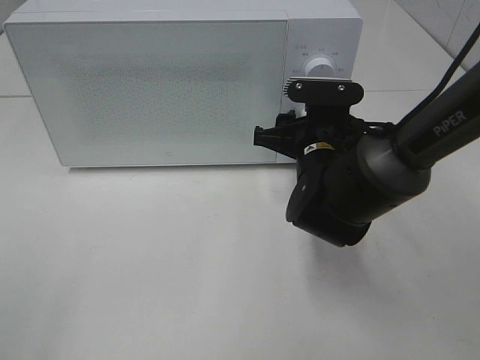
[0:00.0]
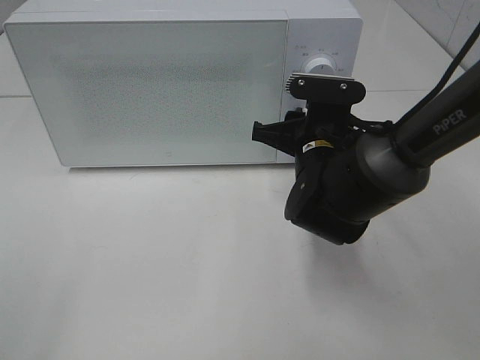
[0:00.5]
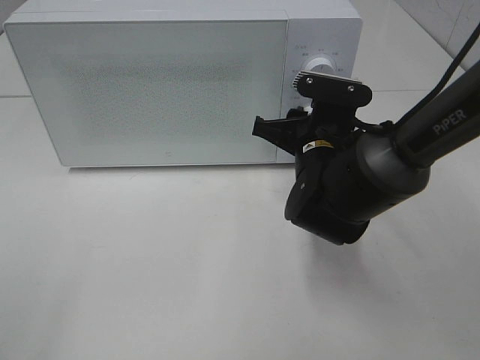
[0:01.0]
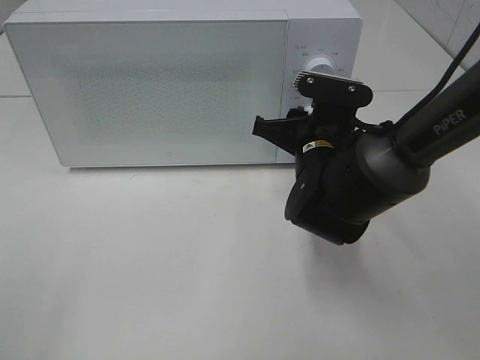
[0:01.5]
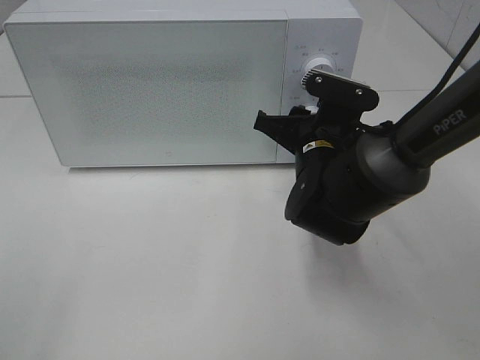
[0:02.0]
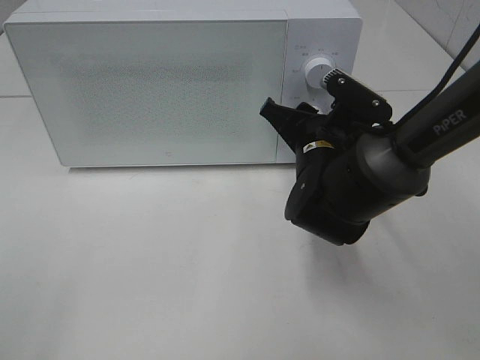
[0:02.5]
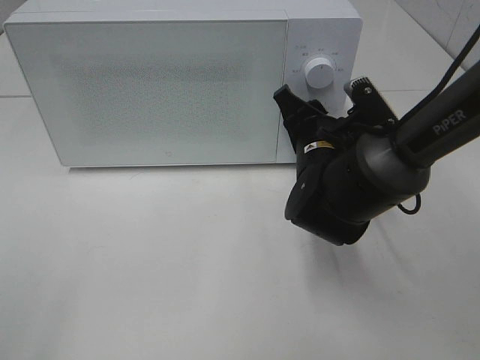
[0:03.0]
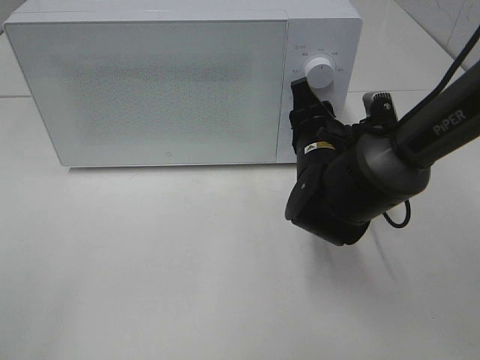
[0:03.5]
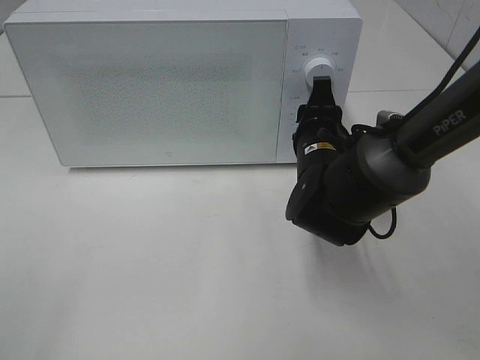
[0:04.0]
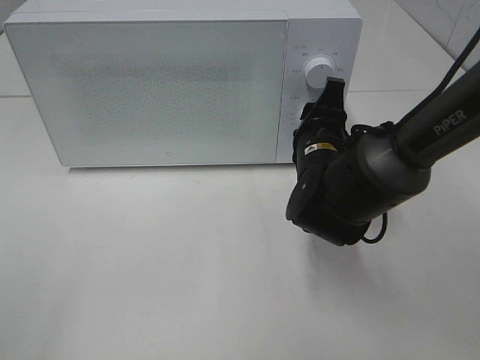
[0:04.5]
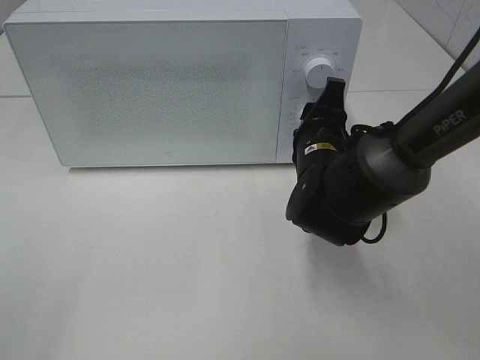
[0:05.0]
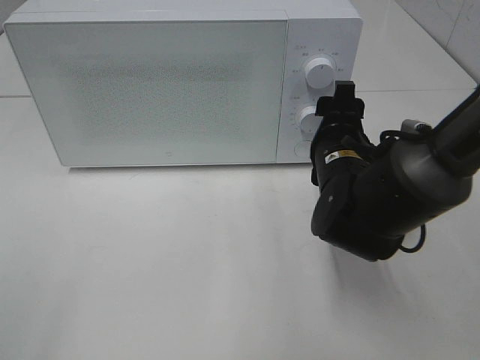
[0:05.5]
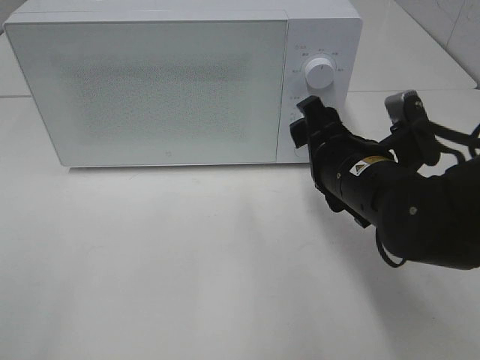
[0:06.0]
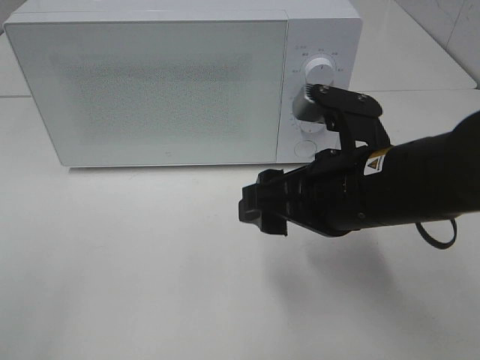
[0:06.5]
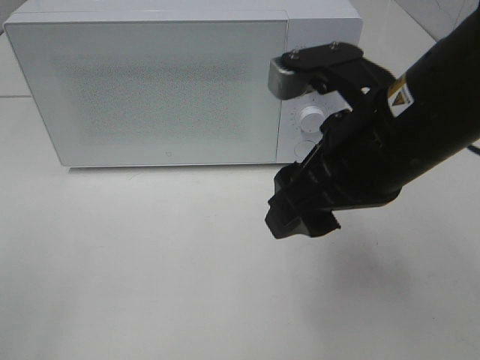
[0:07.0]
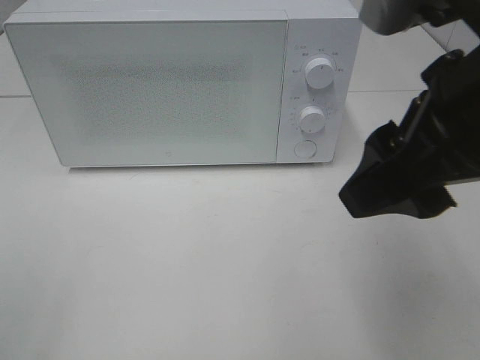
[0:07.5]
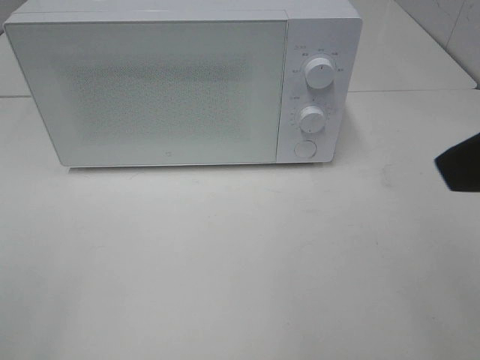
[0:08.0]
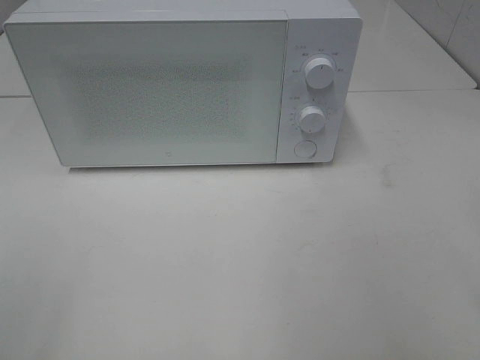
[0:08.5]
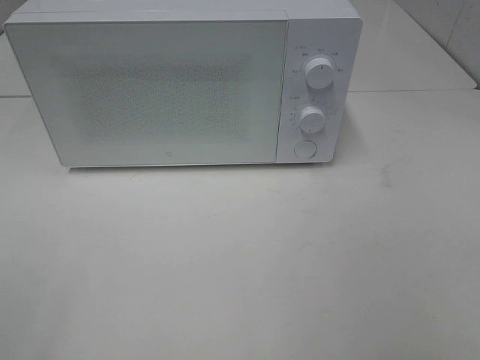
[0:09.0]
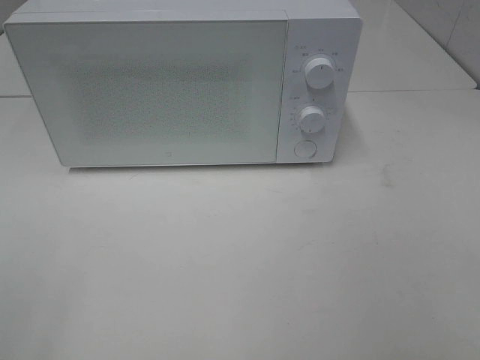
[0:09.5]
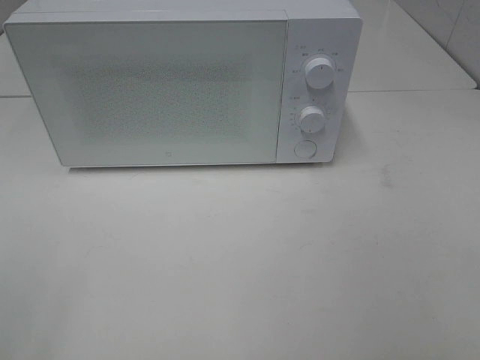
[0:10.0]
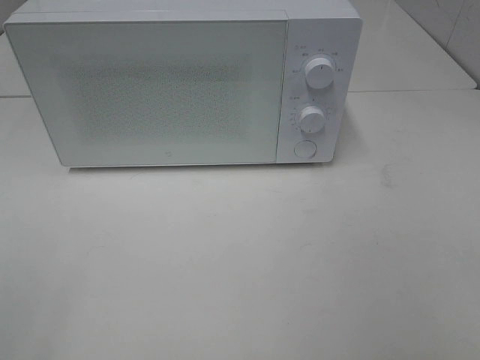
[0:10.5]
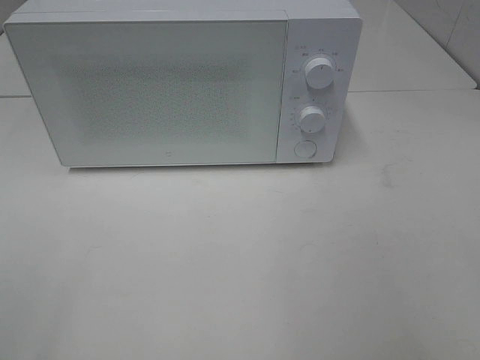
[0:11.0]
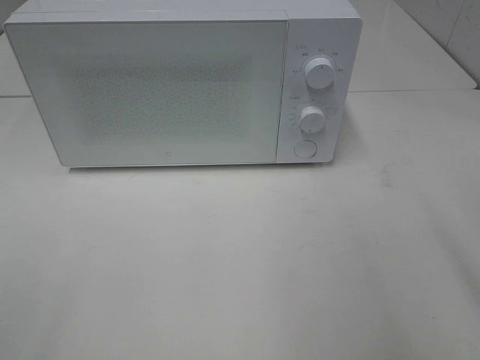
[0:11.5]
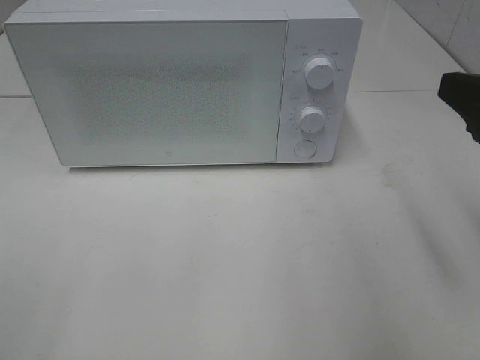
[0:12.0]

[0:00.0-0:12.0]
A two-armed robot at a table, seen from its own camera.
Task of the whole recording: Heat the burger.
Step, 0:00.0 to 0:05.0: Right hand: twist timer button.
0:00.0 to 0:02.0: The grippers make only small movements.
0:04.0 to 0:06.0: The right gripper shifts approximately 5 cm backward.
0:06.0 to 0:08.0: The right gripper shifts approximately 25 cm upward and backward.
0:08.0 to 0:10.0: The right gripper travels backward, to the right and downward by some 15 cm.
0:10.0 to 0:12.0: The right gripper goes some 15 cm forward.

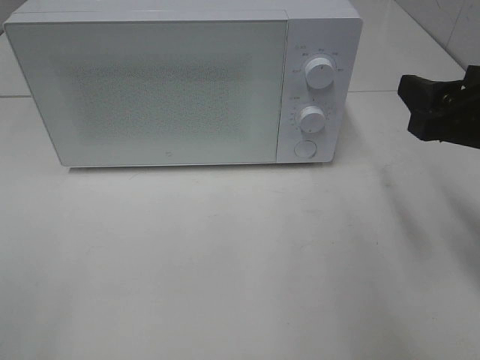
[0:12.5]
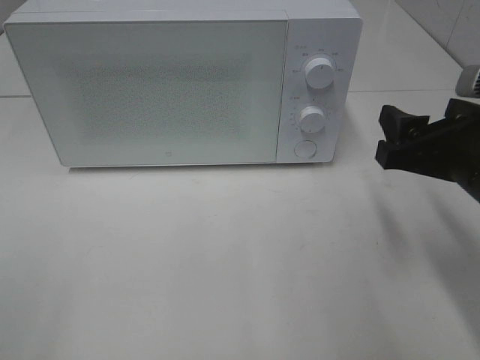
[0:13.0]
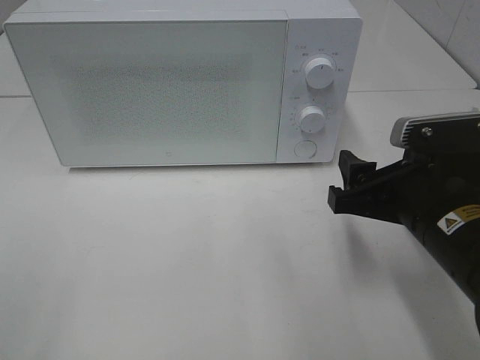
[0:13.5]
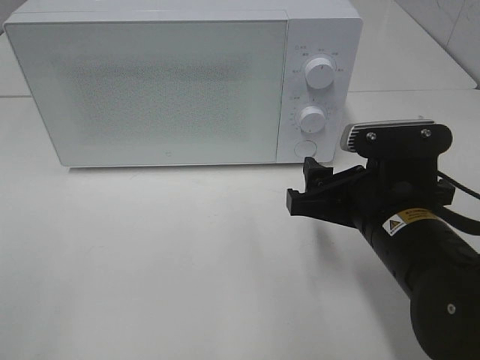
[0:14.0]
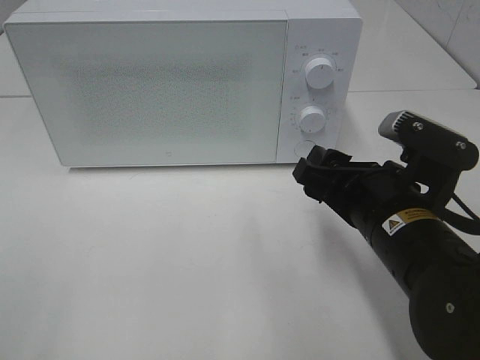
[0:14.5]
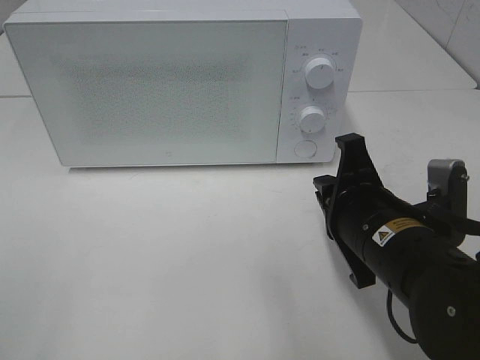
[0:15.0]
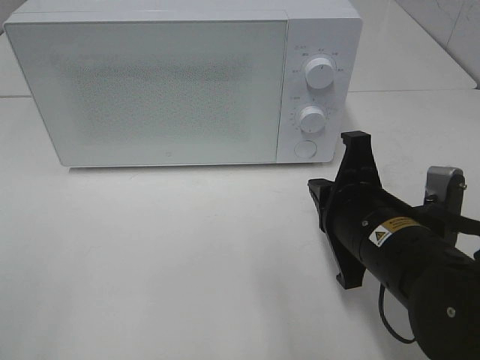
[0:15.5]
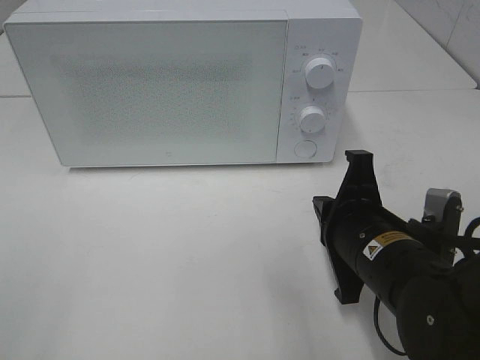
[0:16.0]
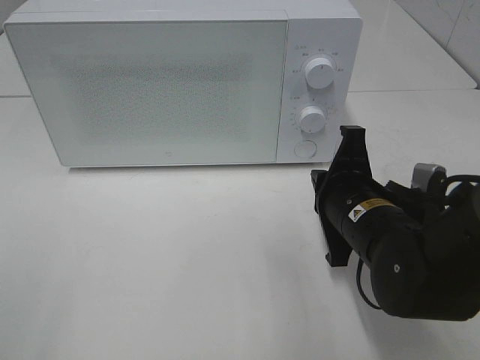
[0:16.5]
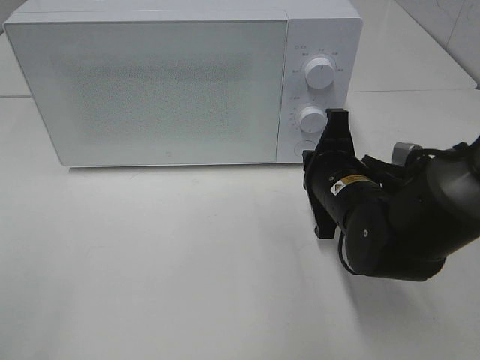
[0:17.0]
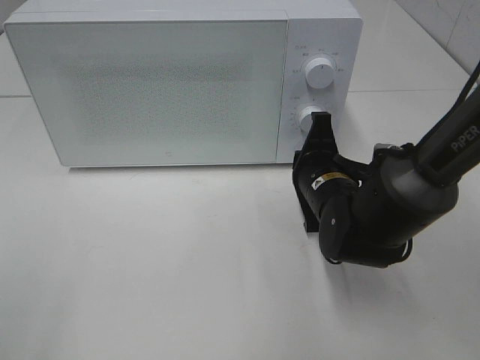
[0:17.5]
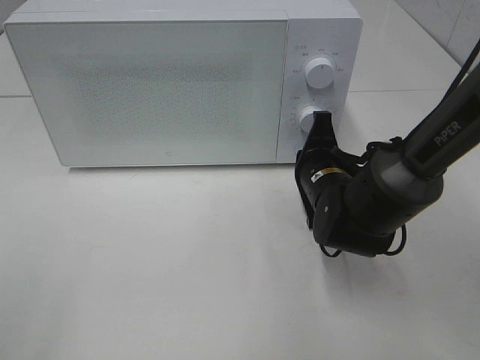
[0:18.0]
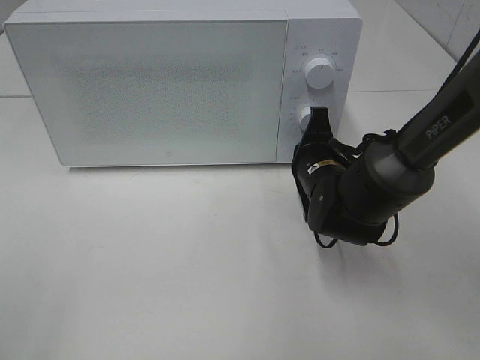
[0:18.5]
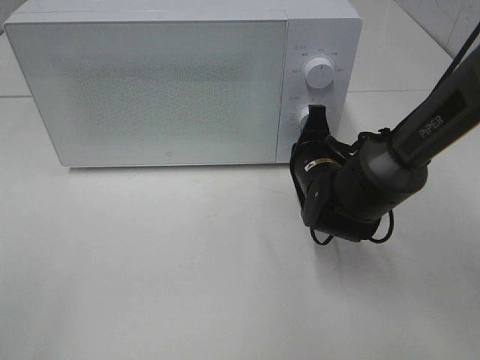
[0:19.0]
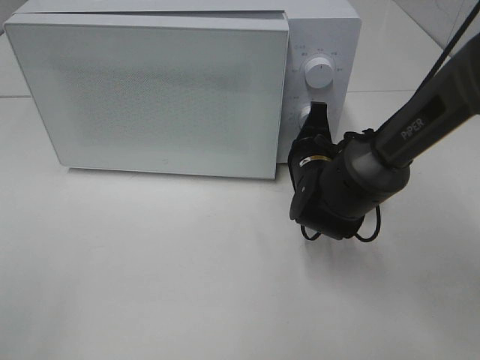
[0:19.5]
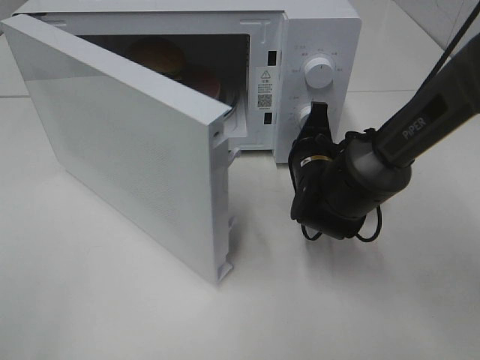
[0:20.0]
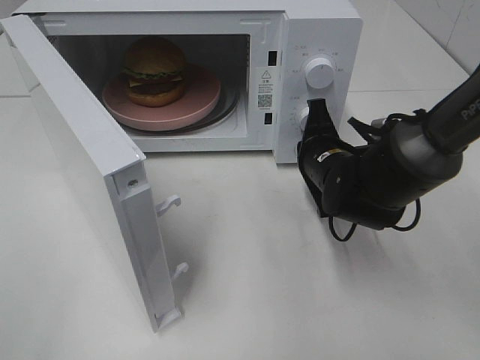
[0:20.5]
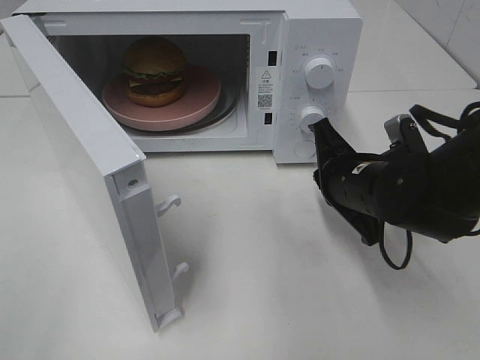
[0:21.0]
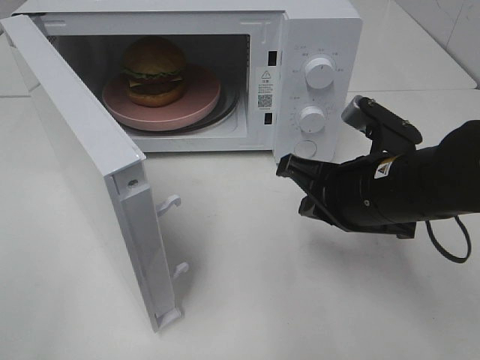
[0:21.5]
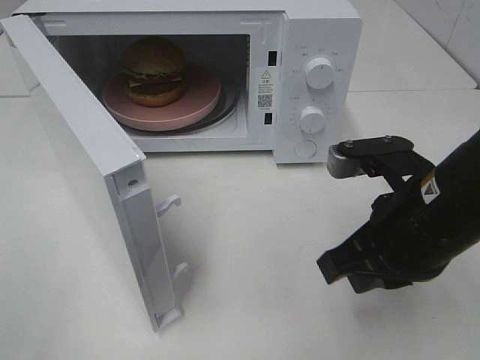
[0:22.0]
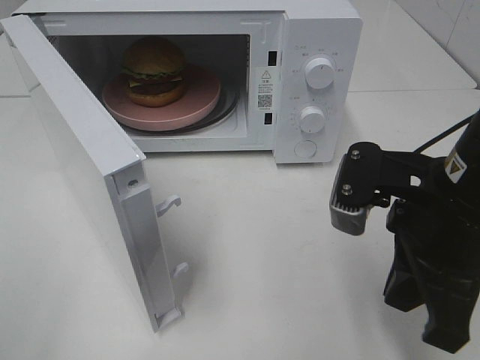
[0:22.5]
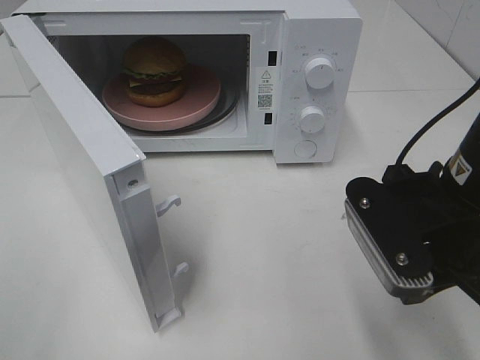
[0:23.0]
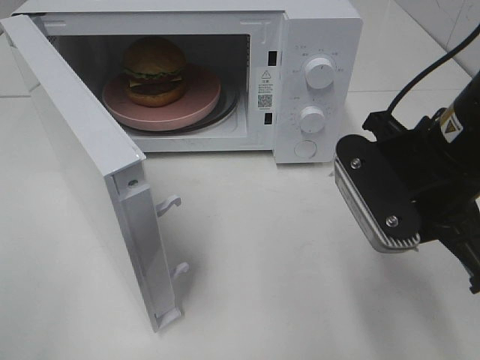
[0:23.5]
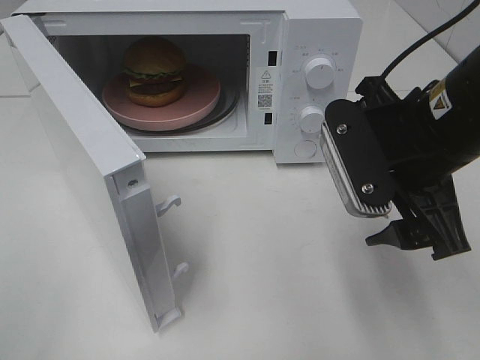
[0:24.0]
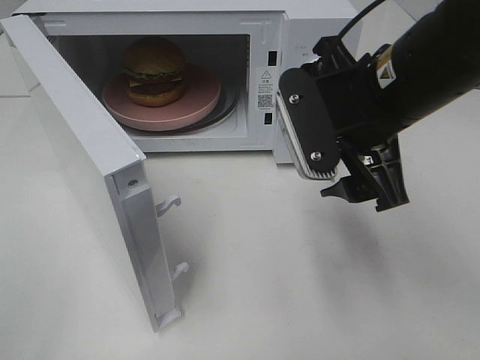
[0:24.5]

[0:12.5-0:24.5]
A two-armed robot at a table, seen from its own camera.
Task of the whole recording: Heat the burger.
Step, 0:12.5 to 0:20.5: Right hand: press the switch.
0:12.5 to 0:14.5: The right gripper shifts roughly 15 cm to the left and downward.
0:14.5 to 0:16.5: The right gripper shifts by approximately 5 cm, and closes.
0:16.5 to 0:18.5: The right gripper goes approximately 10 cm forward.
0:20.5 to 0:22.5: The right gripper is displaced backward and upward by roughly 20 cm.
0:22.5 to 0:24.5: The right gripper heads forward, covering approximately 5 cm, and opens its fingers.

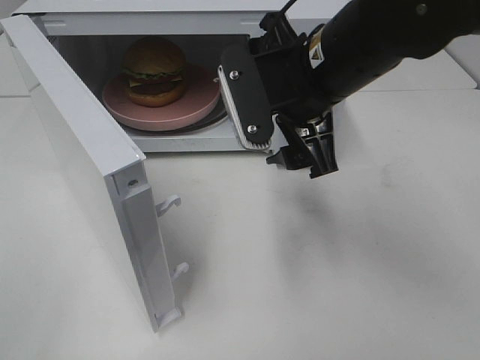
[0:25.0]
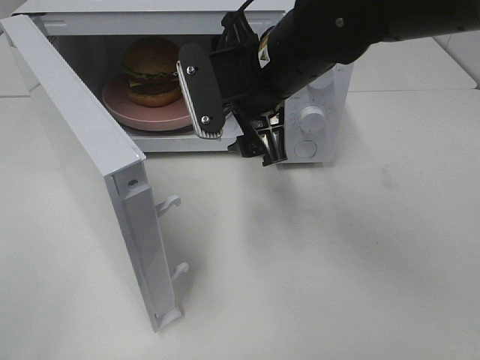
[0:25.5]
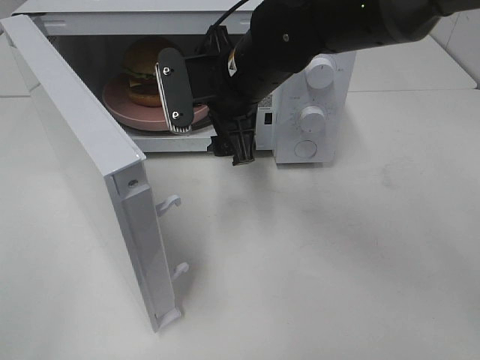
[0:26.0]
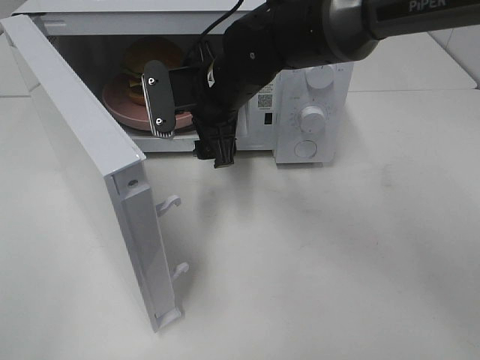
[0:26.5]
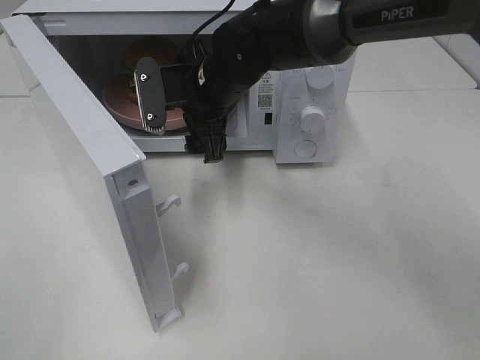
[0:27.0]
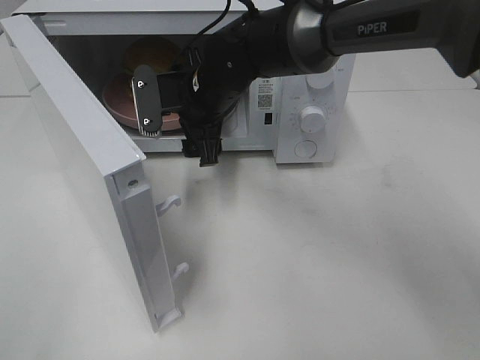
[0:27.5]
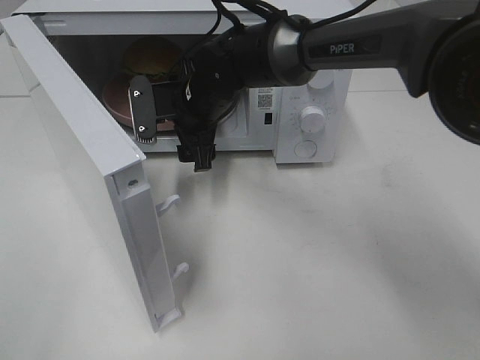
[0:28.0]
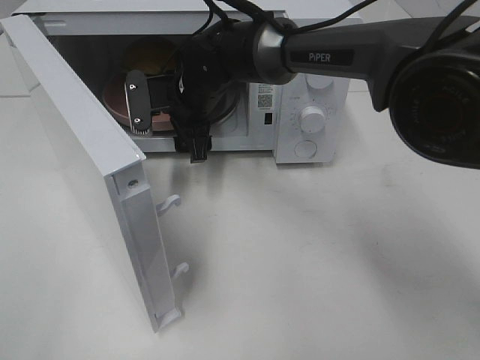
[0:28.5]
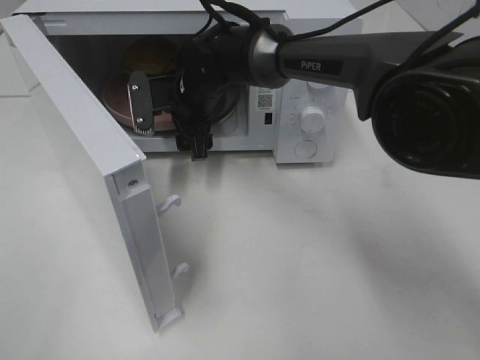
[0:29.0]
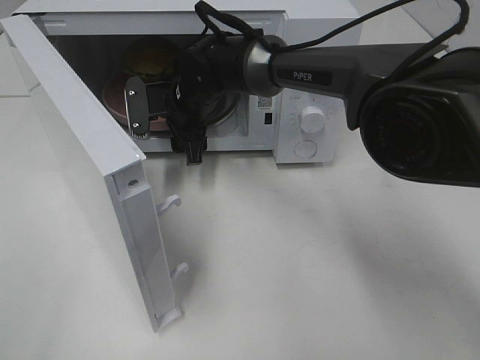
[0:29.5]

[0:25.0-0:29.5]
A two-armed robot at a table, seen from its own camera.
Task of the whole recording: Heat the burger.
0:25.0 to 0:27.0: The right gripper shifts about 15 cm forward, to the left and downward.
0:27.0 to 0:29.5: The right gripper heads forward, covering some 5 cm.
